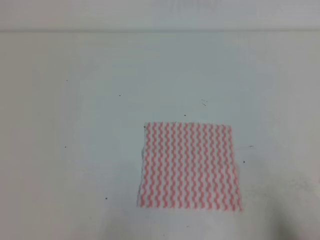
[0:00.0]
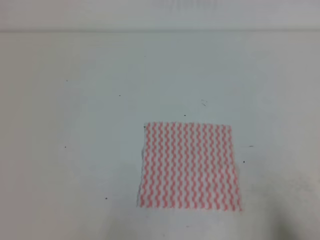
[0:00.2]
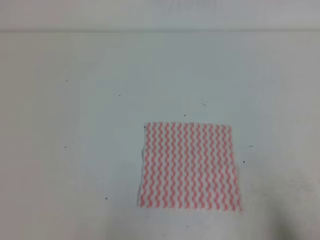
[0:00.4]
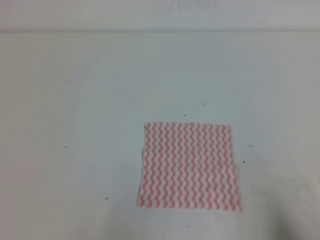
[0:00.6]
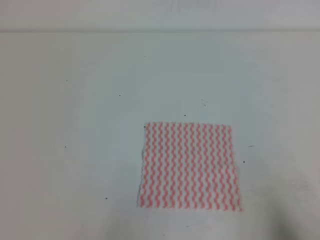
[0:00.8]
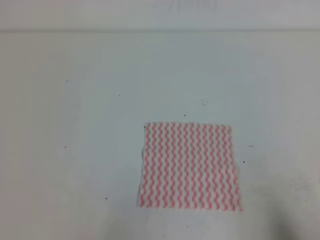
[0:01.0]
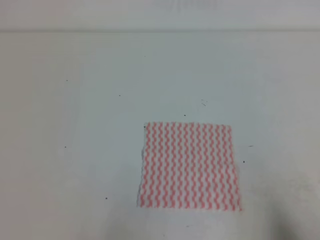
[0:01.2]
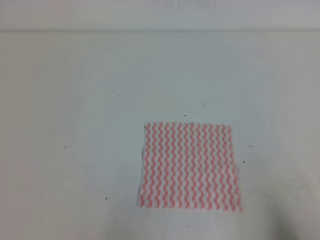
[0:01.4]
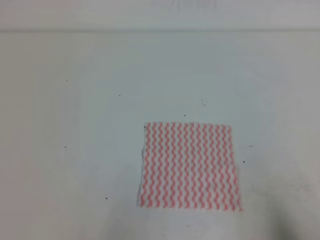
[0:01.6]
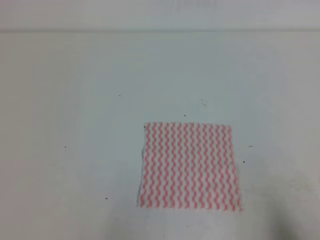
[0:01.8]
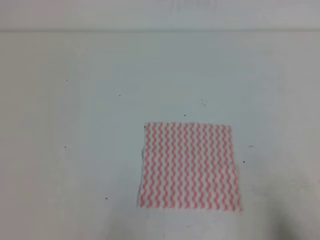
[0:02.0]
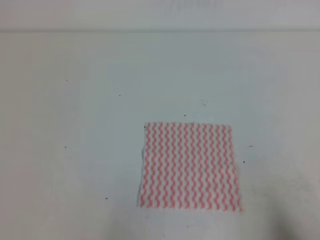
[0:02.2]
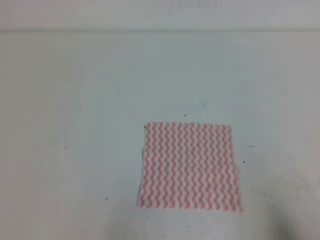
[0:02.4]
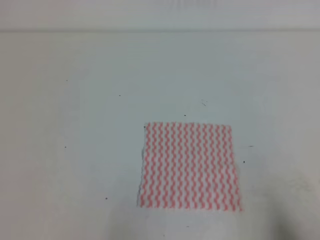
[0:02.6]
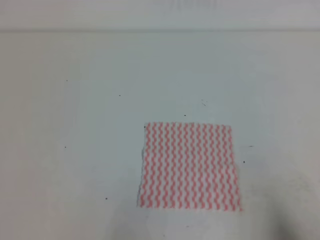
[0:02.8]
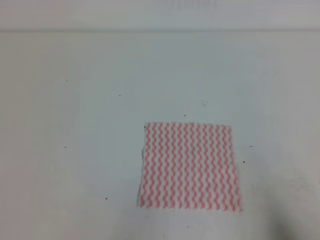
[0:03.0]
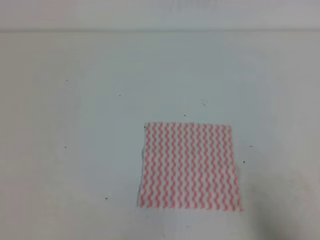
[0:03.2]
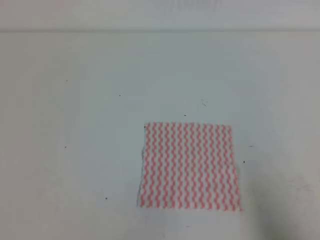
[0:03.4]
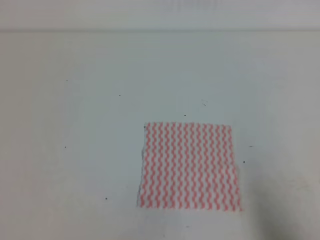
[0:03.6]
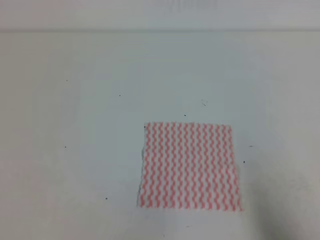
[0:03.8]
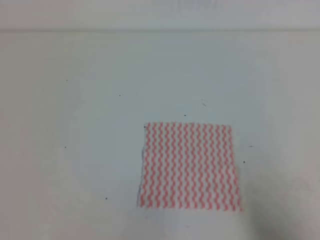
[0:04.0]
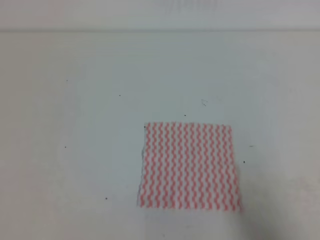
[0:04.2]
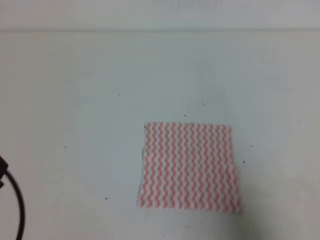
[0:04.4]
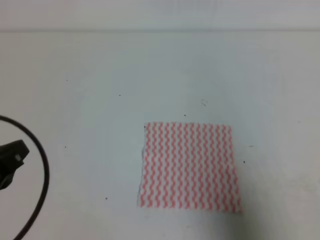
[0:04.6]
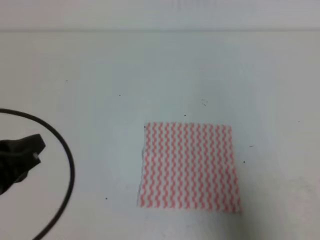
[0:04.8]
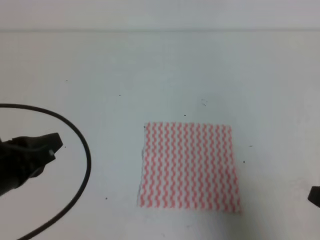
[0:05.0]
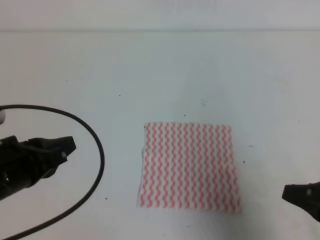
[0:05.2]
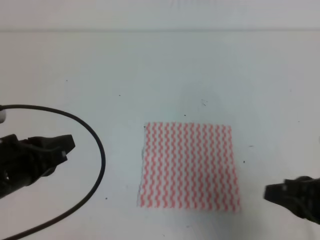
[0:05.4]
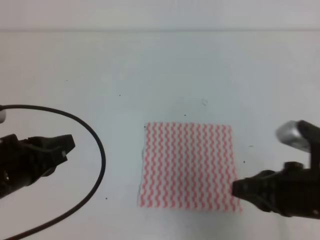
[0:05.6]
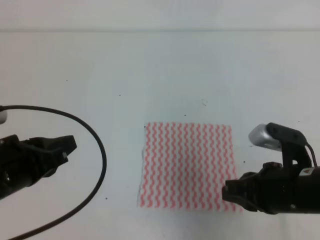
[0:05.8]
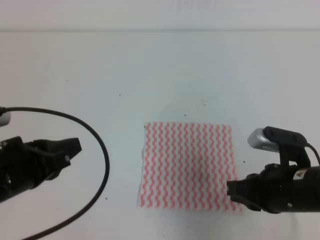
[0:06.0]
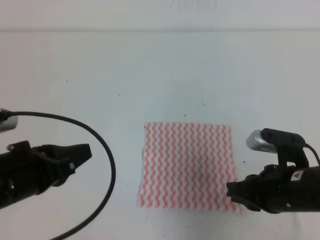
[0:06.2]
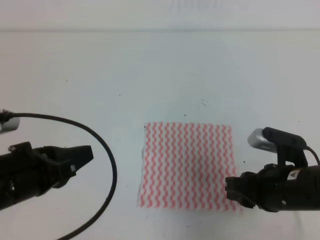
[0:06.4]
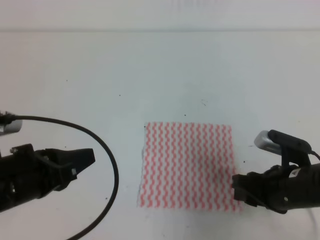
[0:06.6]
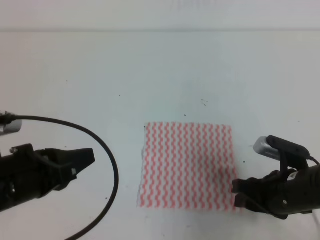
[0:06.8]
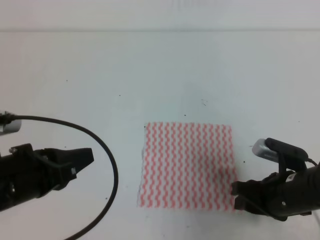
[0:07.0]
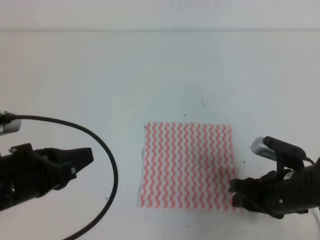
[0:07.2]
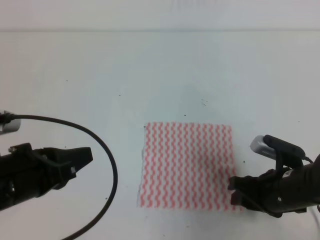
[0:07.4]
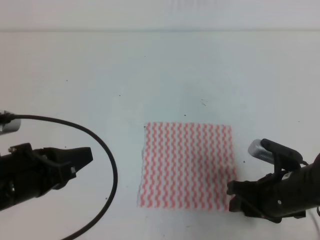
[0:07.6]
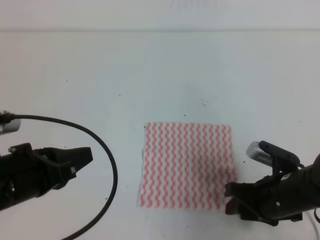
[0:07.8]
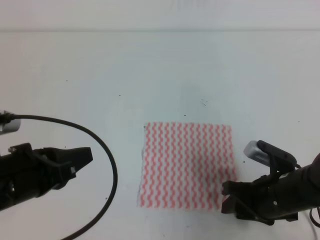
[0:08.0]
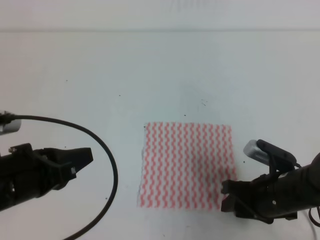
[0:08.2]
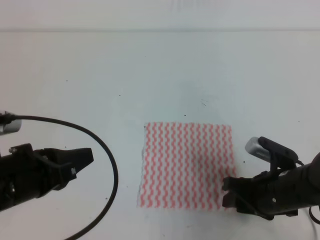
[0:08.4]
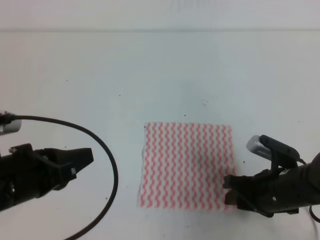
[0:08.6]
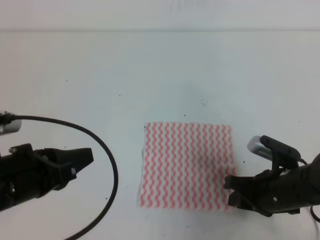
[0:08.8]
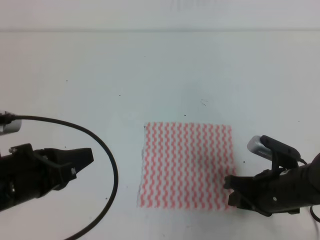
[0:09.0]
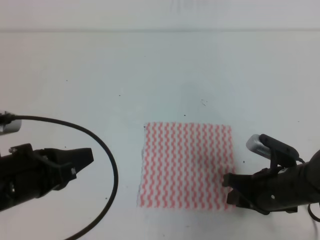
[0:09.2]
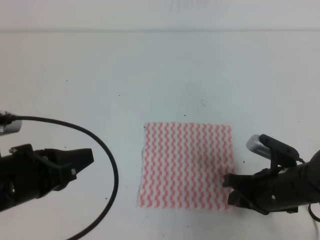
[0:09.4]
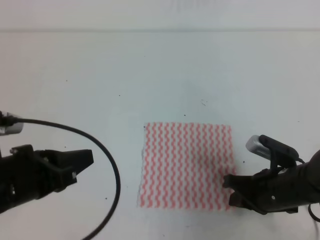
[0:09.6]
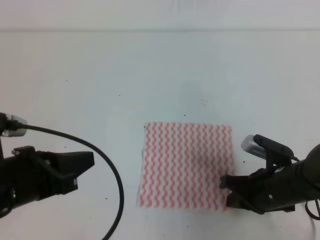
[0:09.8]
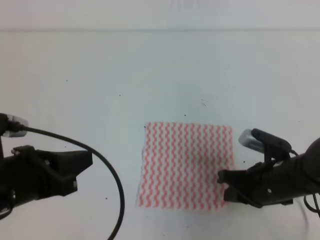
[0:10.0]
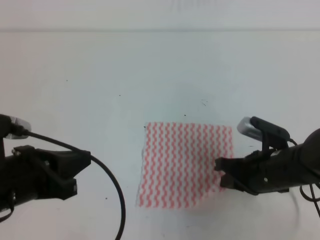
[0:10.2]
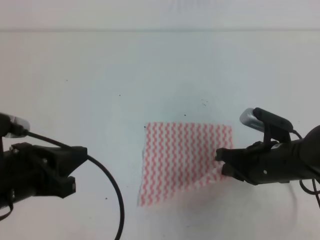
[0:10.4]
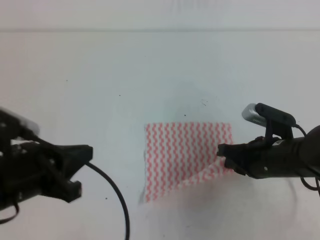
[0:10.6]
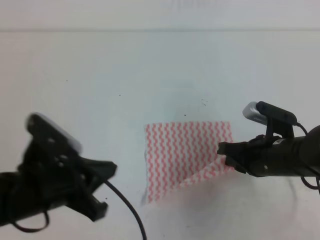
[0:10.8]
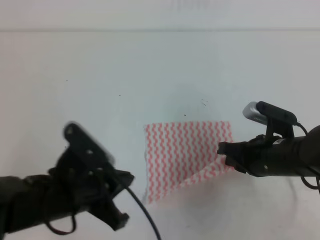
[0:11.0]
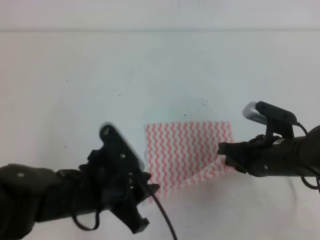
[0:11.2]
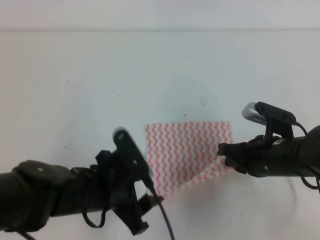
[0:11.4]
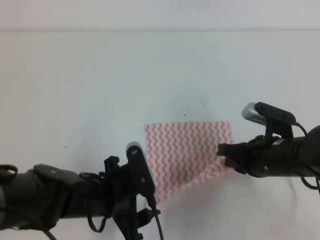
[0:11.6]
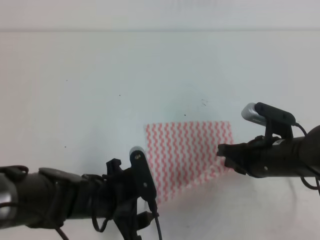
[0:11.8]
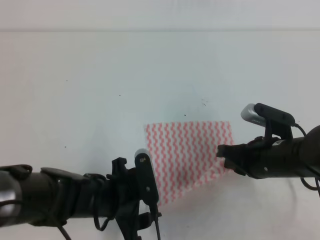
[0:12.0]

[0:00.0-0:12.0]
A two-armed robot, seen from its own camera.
0:00.0 to 0:01.6: Neither gripper changes place.
0:03.0 to 0:04.4: The grippers both shift upward by about 5 cm.
0:04.4 to 0:06.0: The right gripper is displaced forward and to the left by approximately 15 cm; the left gripper is displaced forward and to the right by approximately 10 cm.
0:06.0 to 0:07.6: The right gripper is displaced downward by roughly 5 cm, and opens its fingers.
0:07.6 to 0:09.0: The right gripper closes.
0:09.0 to 0:10.4: The right gripper changes place by approximately 5 cm, and closes its fingers.
0:10.4 to 0:12.0: The left gripper heads downward and to the right, covering some 15 cm, and opens.

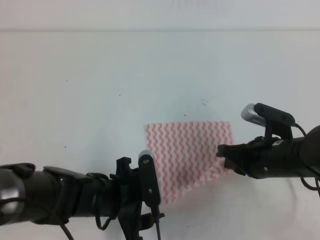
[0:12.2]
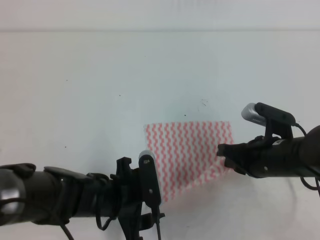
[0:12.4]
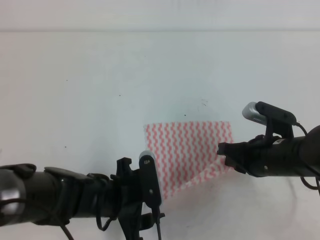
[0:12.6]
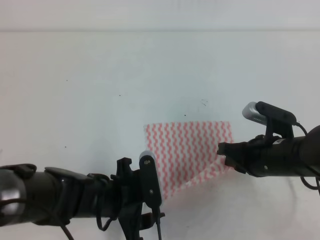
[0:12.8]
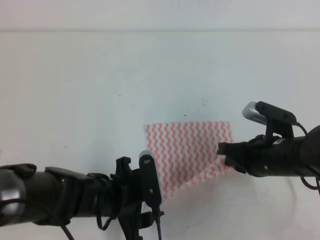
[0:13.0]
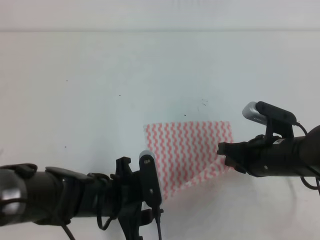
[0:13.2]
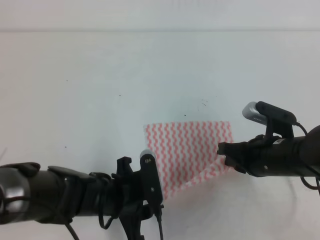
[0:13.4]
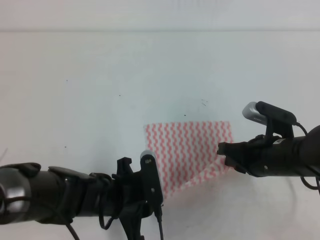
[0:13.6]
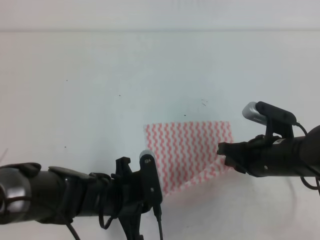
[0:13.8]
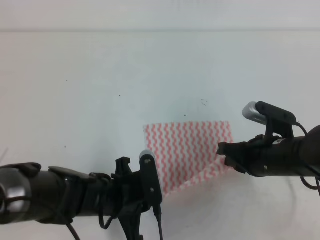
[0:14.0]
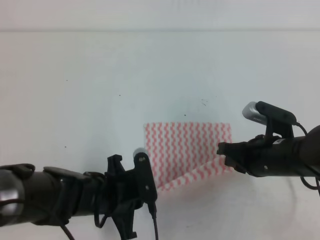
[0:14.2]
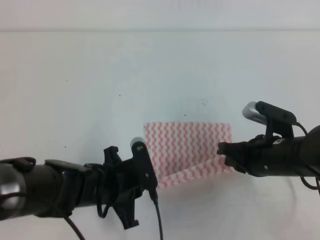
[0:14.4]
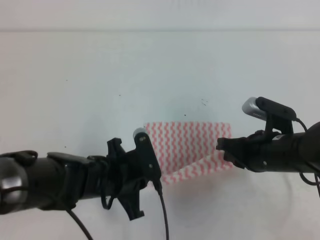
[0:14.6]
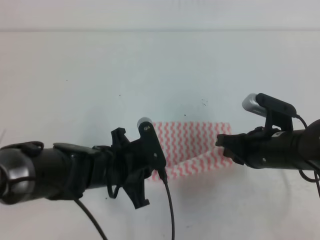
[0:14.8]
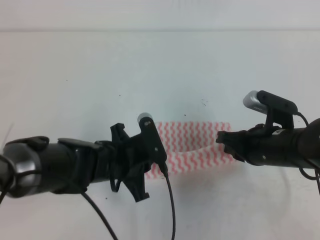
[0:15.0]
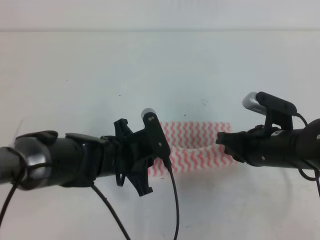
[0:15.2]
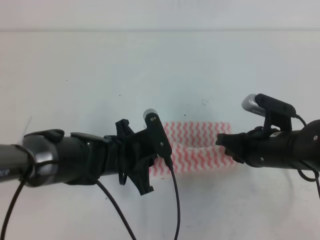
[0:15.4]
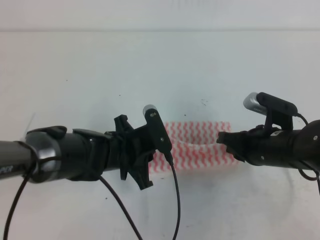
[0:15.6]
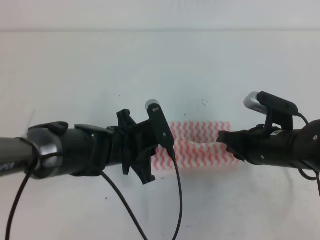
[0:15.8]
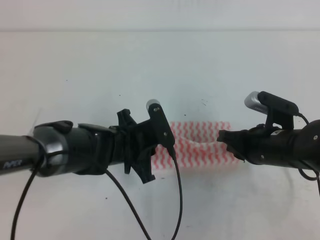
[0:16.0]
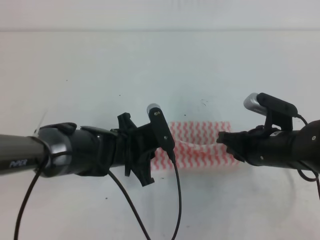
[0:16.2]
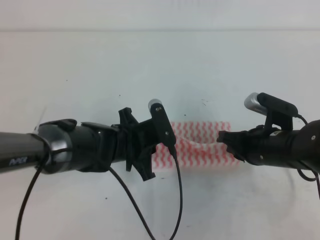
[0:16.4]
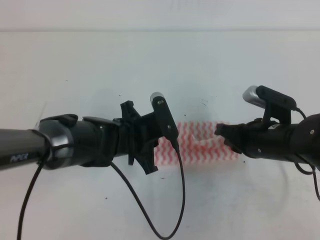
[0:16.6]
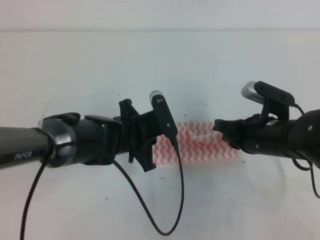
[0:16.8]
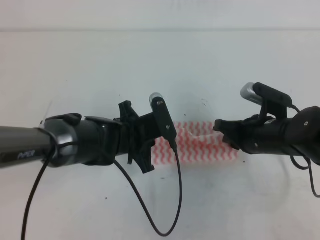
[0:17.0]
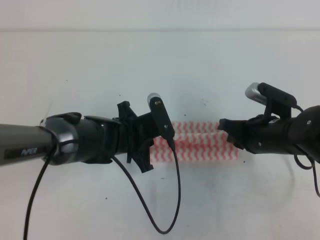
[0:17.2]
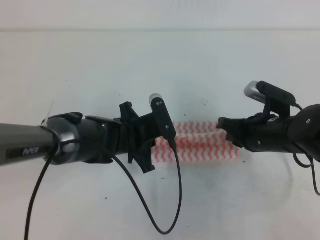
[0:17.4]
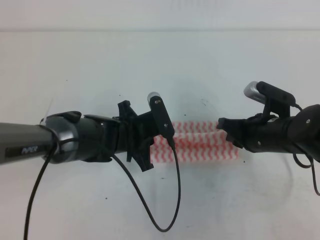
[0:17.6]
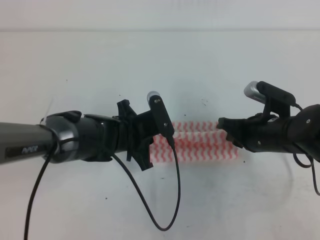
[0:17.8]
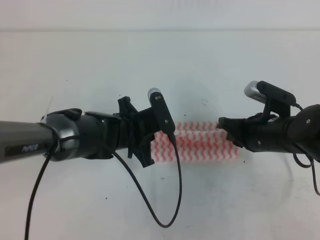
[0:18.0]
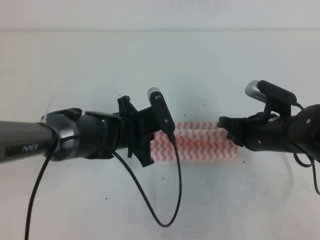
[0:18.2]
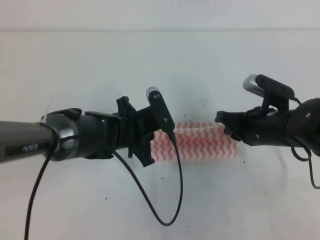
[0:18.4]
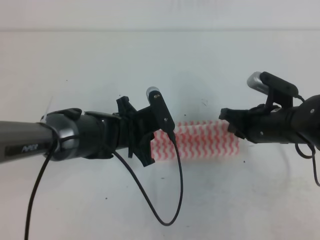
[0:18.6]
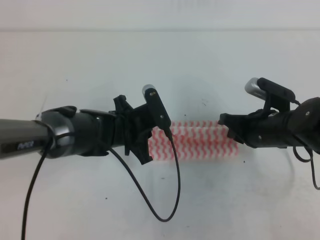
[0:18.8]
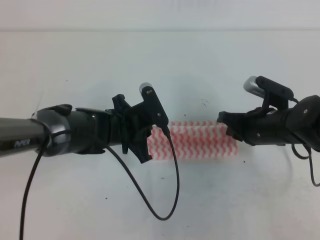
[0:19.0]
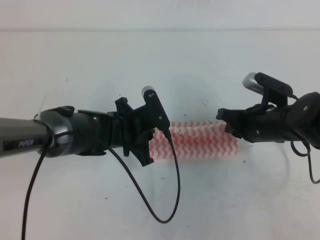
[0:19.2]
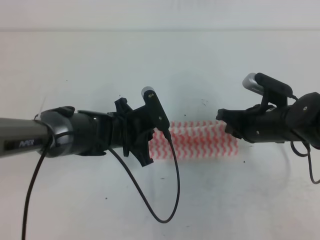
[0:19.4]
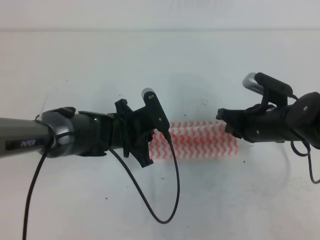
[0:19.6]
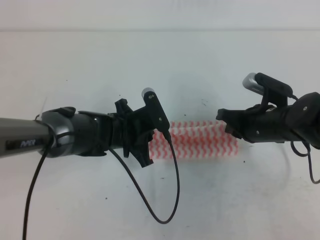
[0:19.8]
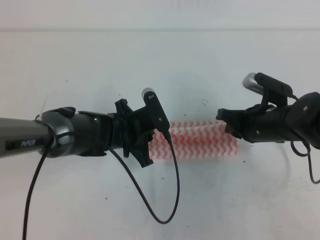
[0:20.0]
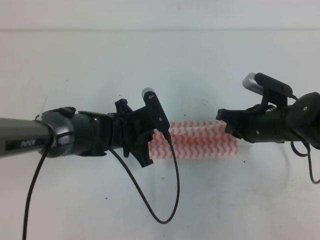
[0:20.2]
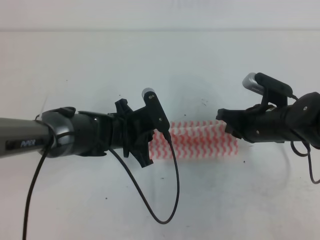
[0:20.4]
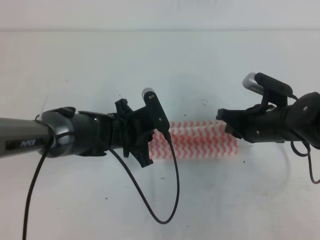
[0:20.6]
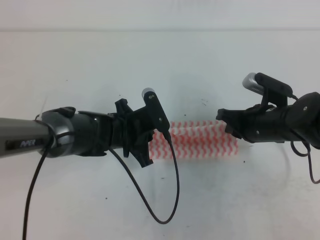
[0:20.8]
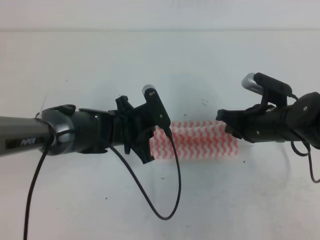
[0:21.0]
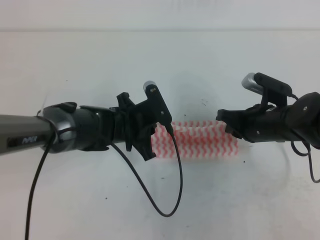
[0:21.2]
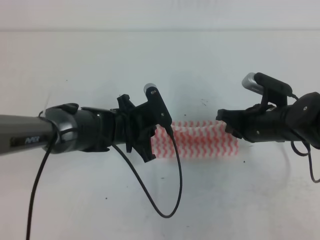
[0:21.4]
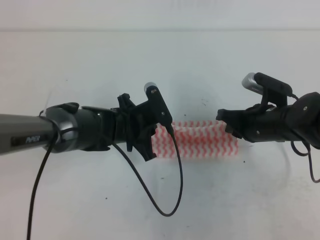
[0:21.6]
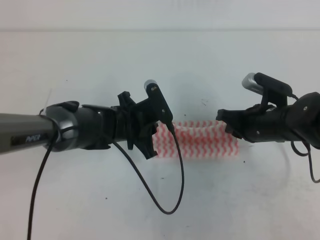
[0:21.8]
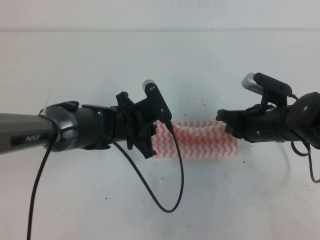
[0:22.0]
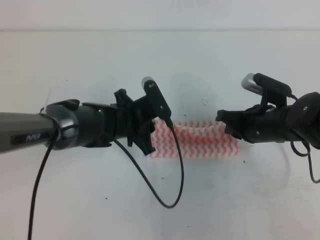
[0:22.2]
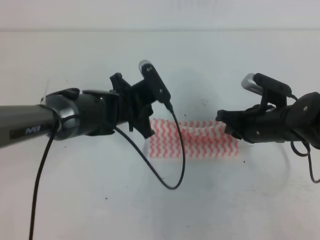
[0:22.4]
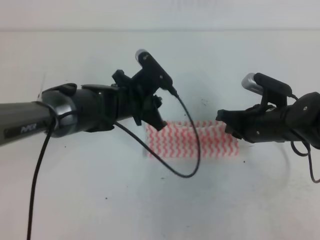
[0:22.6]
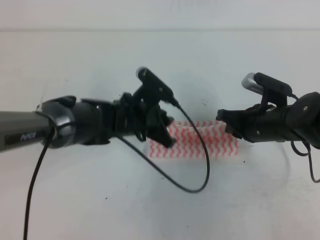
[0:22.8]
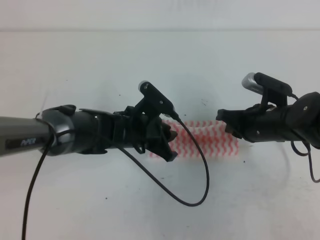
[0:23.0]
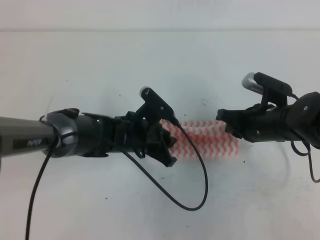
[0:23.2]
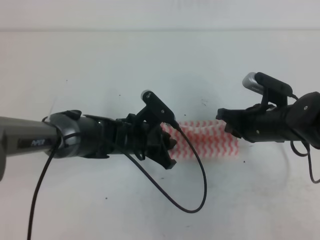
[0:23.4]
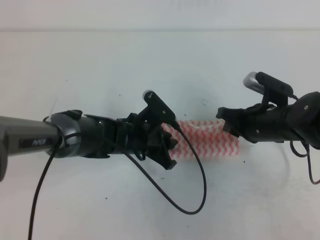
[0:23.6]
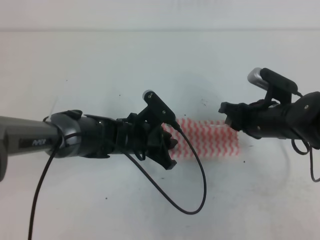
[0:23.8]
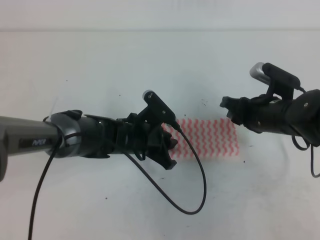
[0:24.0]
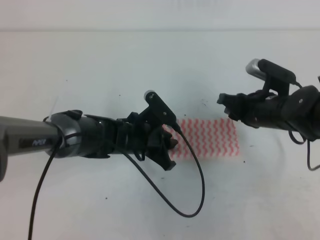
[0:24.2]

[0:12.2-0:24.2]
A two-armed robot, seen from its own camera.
0:12.2 to 0:13.8: The left gripper closes up.
0:13.8 to 0:15.2: The left gripper heads forward and upward, covering about 5 cm.
0:15.2 to 0:18.2: The grippers make only small movements.
0:18.2 to 0:19.8: The grippers move only a little.
0:19.8 to 0:21.2: The two grippers keep their place.
0:21.2 to 0:22.6: The grippers stay close to where they were, moving slightly.
0:22.6 to 0:24.2: The right gripper opens up, while the left gripper heads downward, covering approximately 5 cm.
